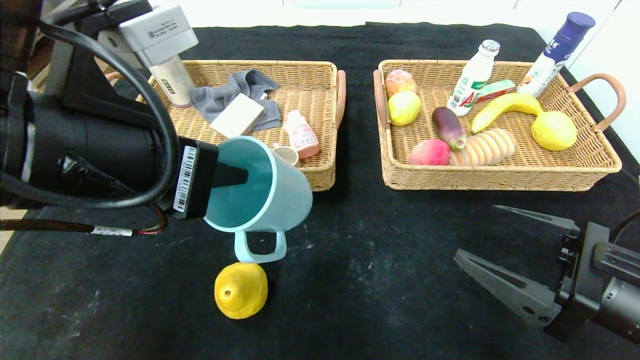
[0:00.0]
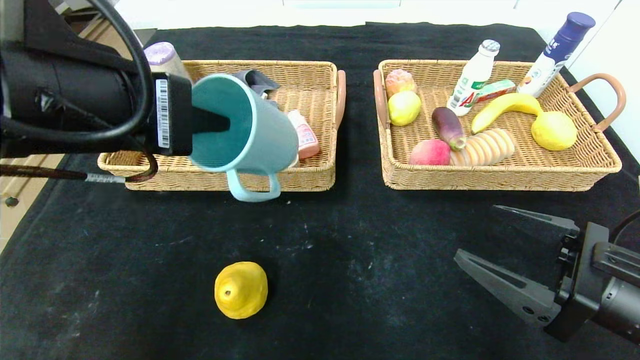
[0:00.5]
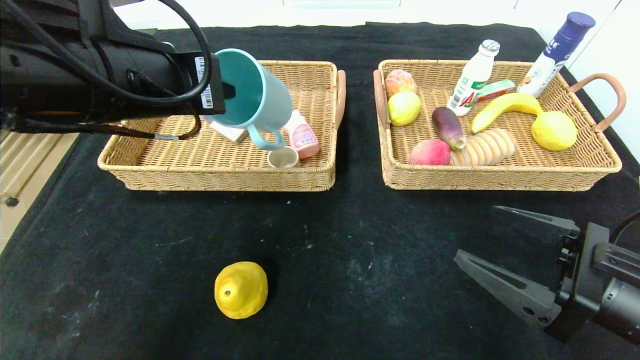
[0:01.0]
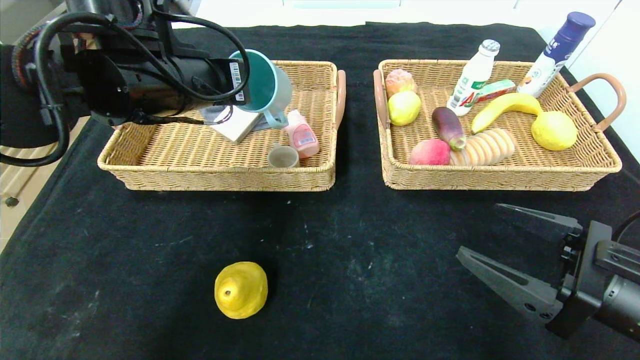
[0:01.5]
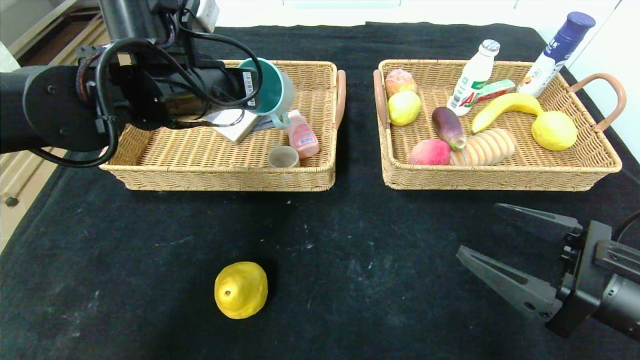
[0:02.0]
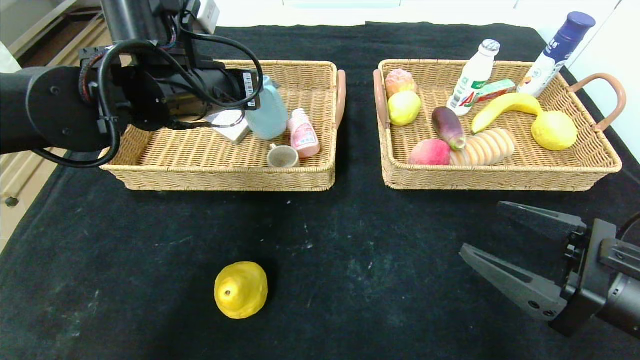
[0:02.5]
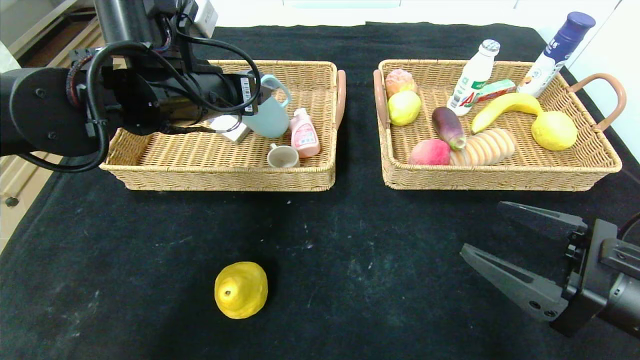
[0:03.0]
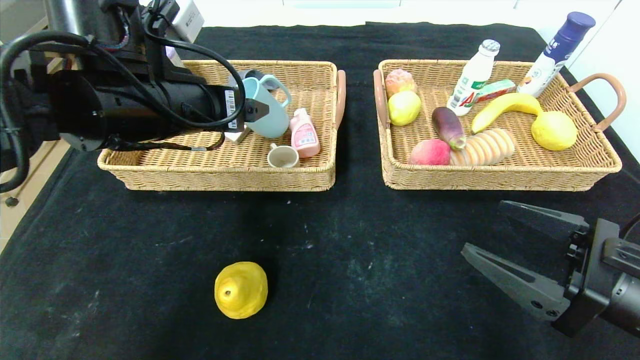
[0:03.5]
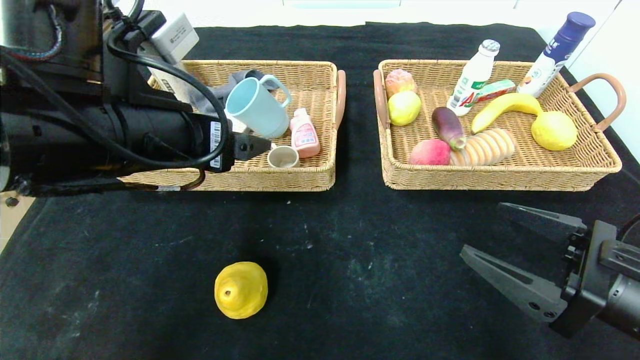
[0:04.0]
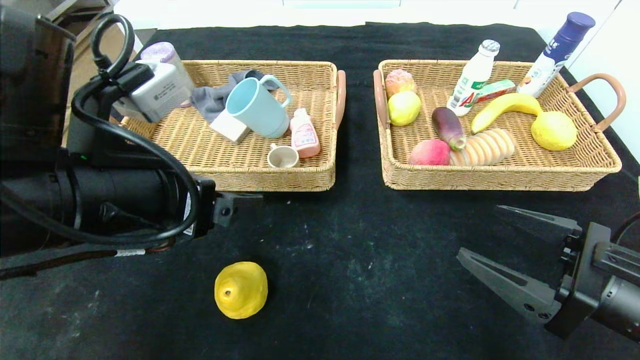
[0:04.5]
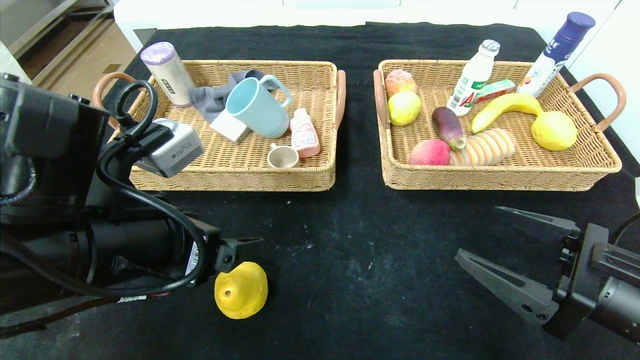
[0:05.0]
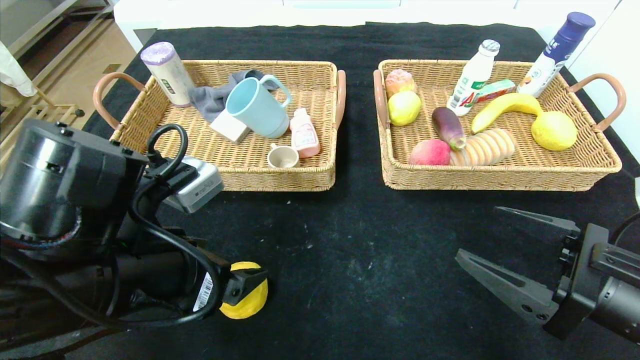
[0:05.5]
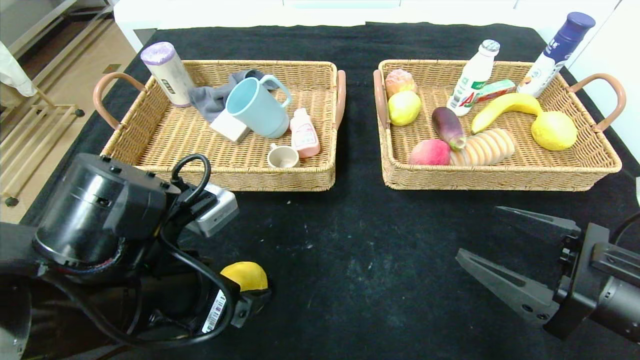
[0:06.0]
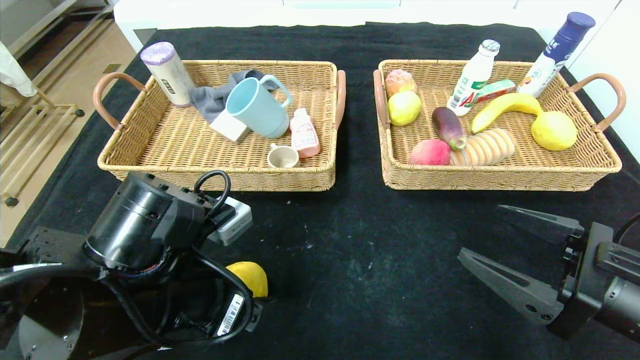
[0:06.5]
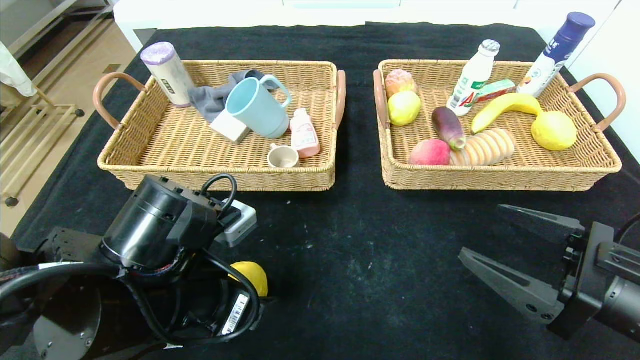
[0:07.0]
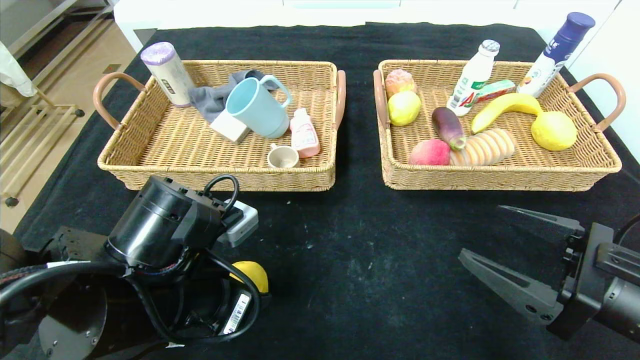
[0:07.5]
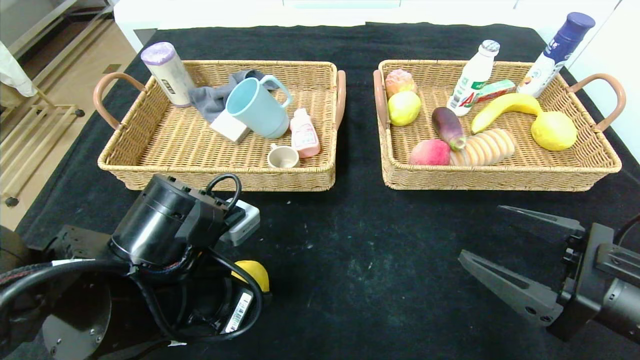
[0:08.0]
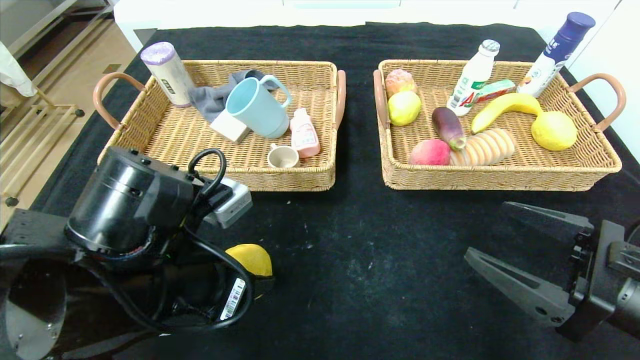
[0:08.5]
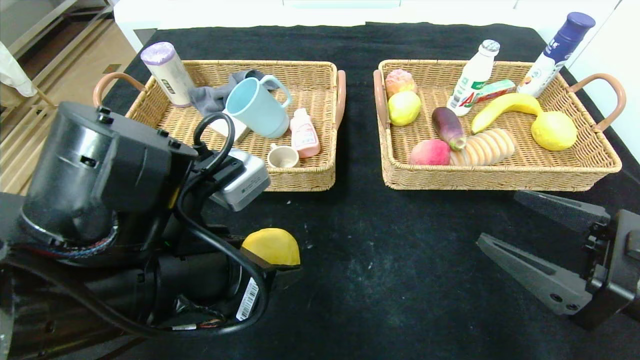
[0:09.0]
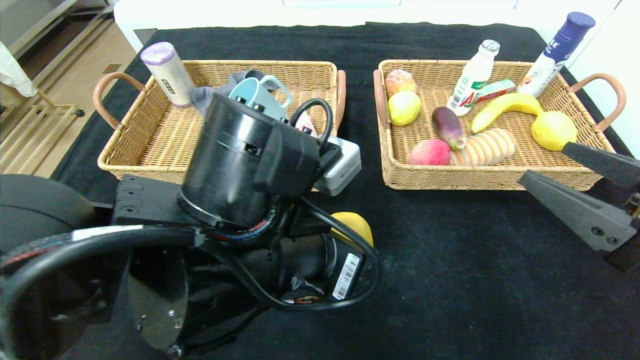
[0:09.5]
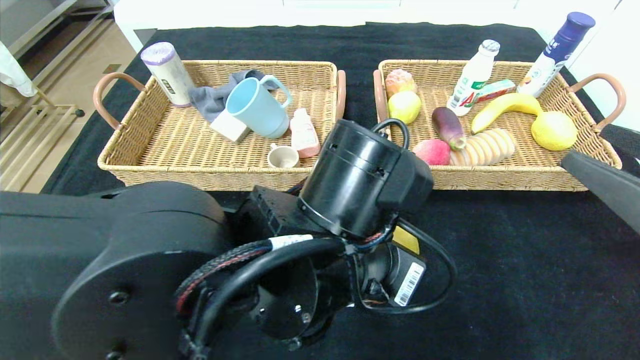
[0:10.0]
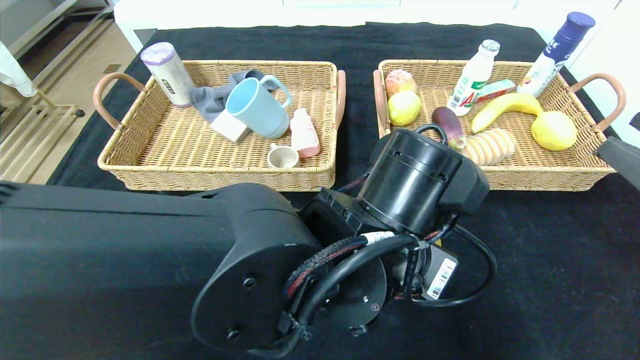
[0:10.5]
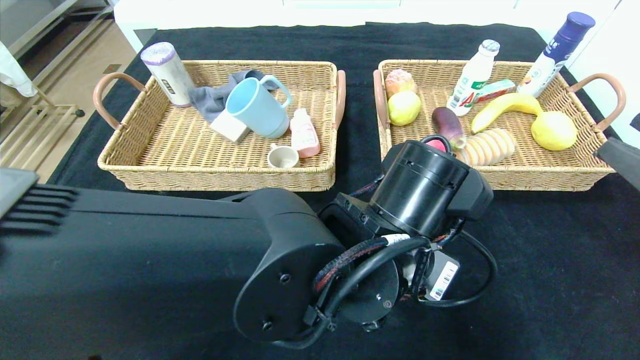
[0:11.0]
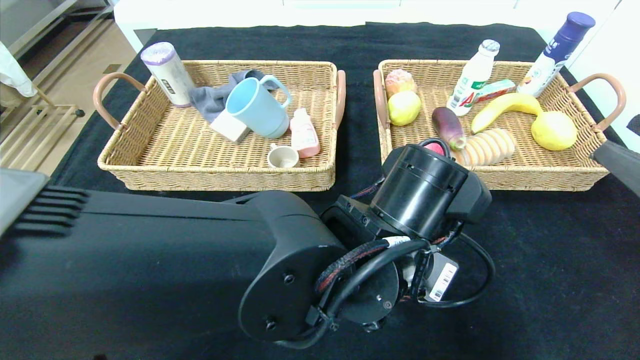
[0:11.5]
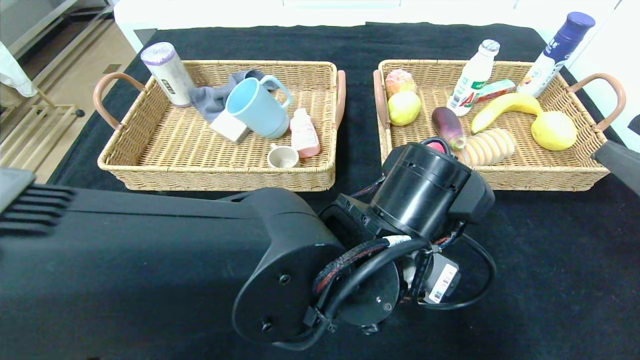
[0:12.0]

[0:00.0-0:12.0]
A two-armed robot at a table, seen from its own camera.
Step, 0:00.0 to 0:03.5: Grasp the blue cup and put it in the left basket.
0:00.0 to 0:02.0: The left gripper moves forward, approximately 15 cm.
0:02.0 to 0:04.0: The left gripper goes approximately 10 cm backward, and opens up.
0:04.0 to 0:06.0: The left gripper heads downward and backward, covering approximately 10 cm.
0:06.0 to 0:08.0: The left gripper closes its fingers.
0:08.0 to 0:10.0: The left gripper shifts some 15 cm to the right. The right gripper is displaced upward by some 5 cm.
0:10.0 to 0:12.0: The left gripper shifts by about 5 cm.

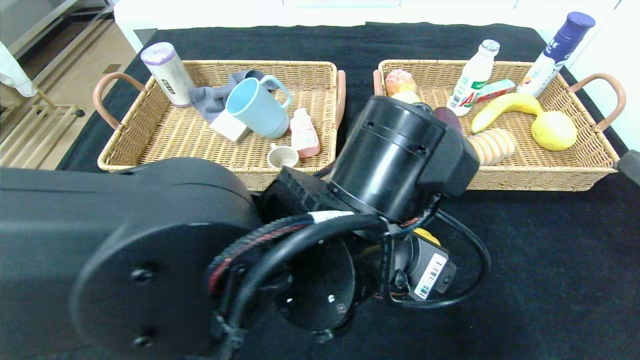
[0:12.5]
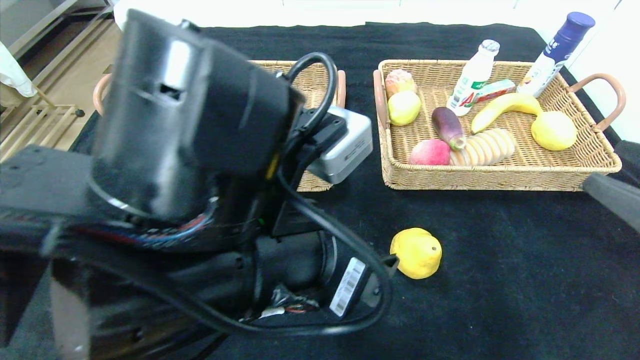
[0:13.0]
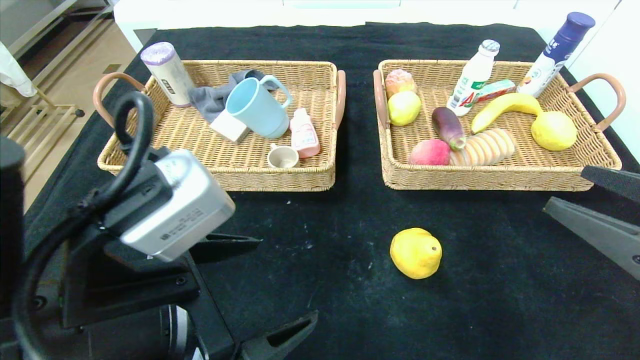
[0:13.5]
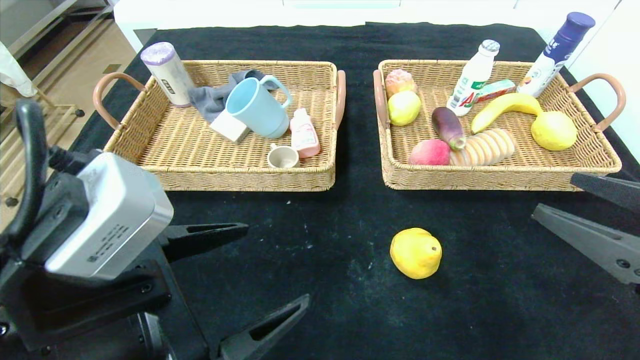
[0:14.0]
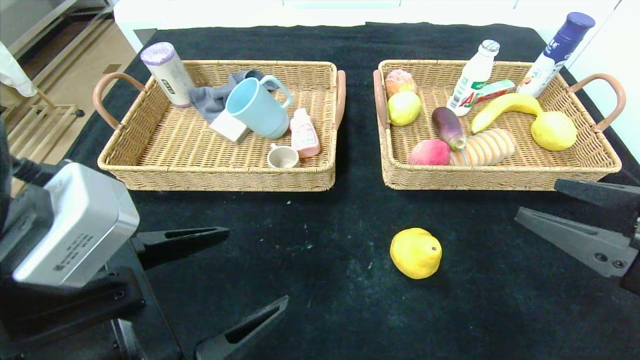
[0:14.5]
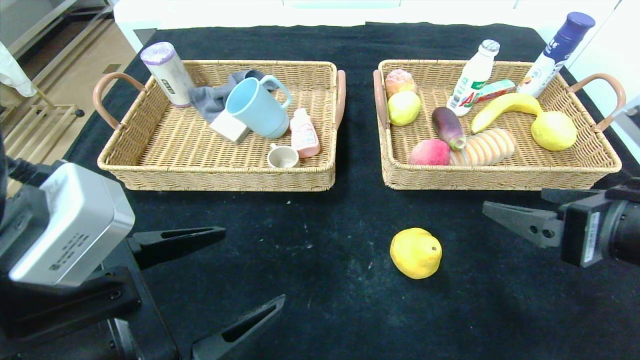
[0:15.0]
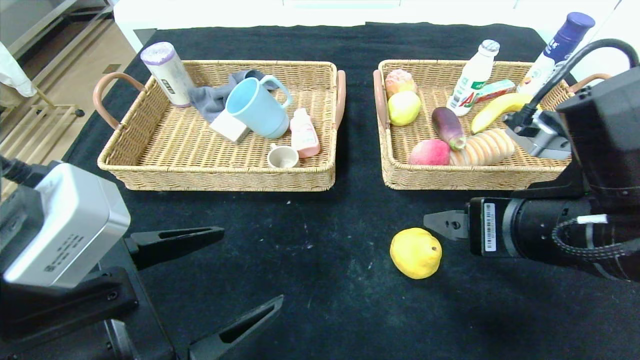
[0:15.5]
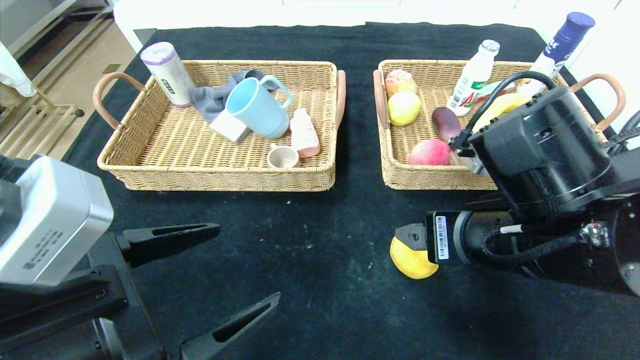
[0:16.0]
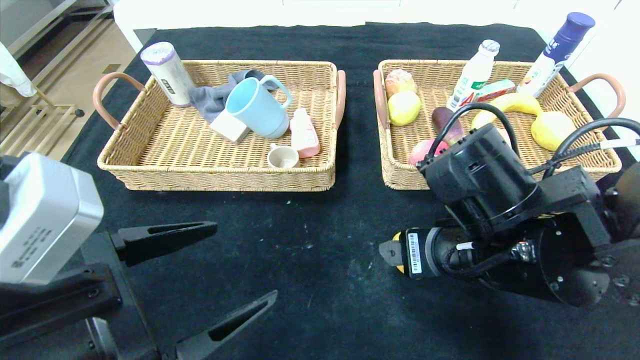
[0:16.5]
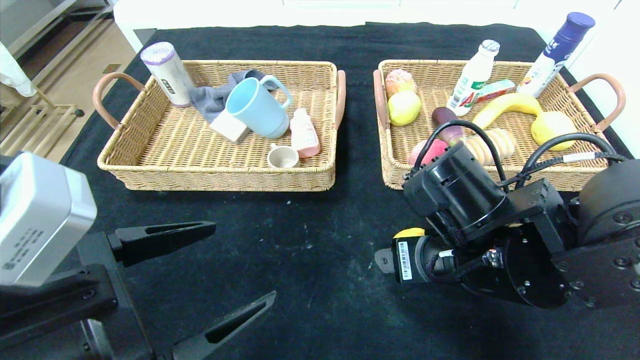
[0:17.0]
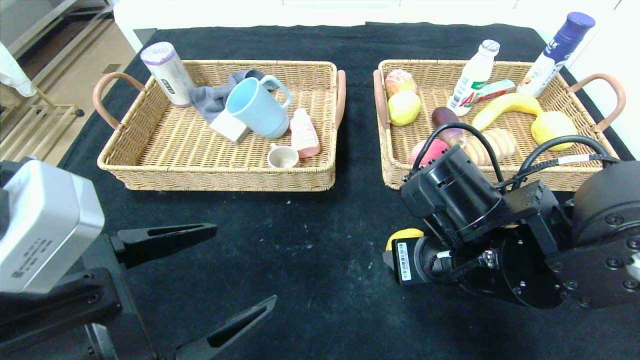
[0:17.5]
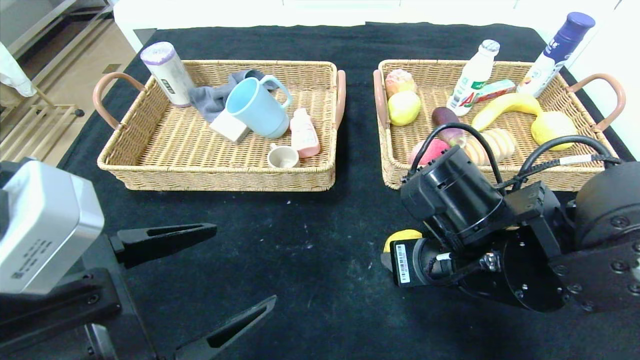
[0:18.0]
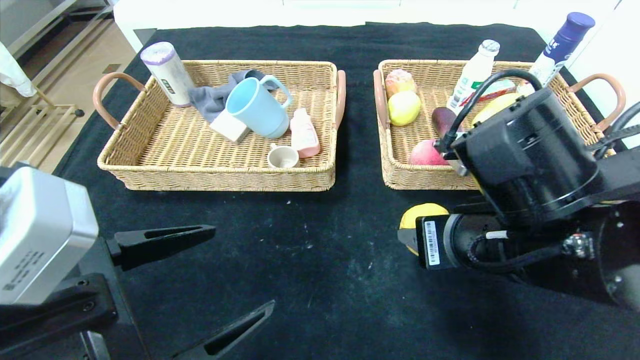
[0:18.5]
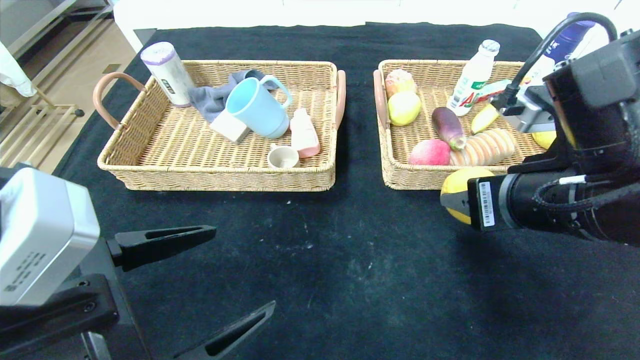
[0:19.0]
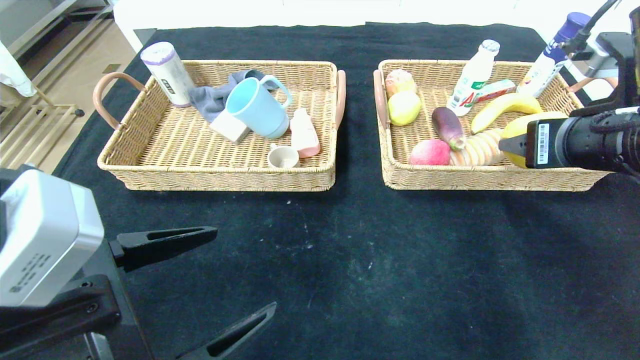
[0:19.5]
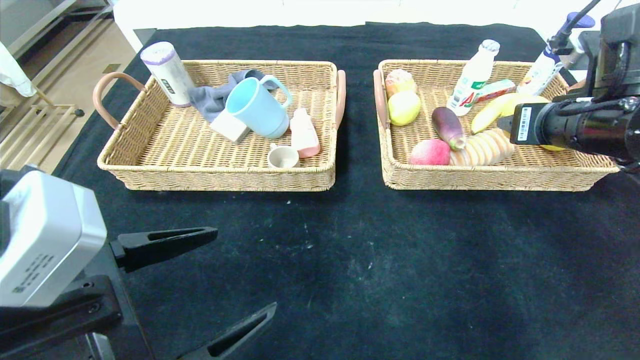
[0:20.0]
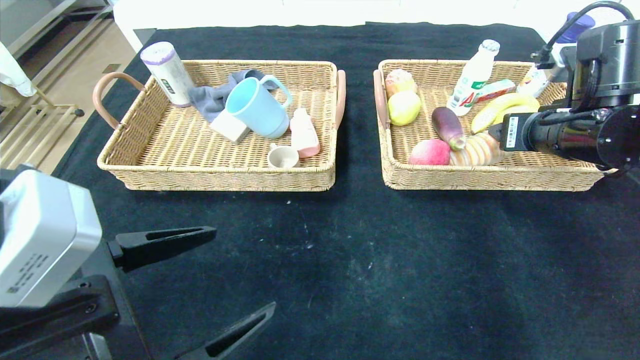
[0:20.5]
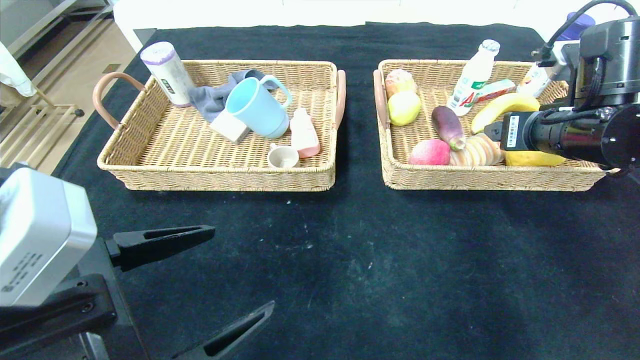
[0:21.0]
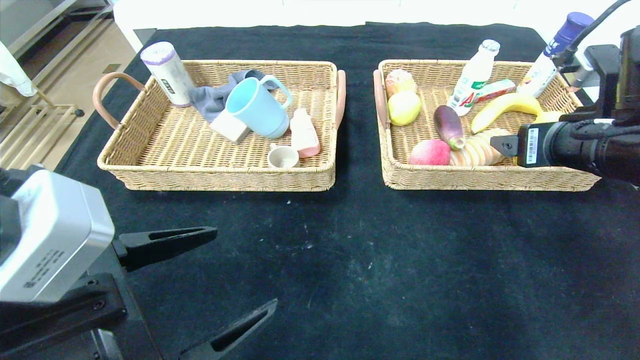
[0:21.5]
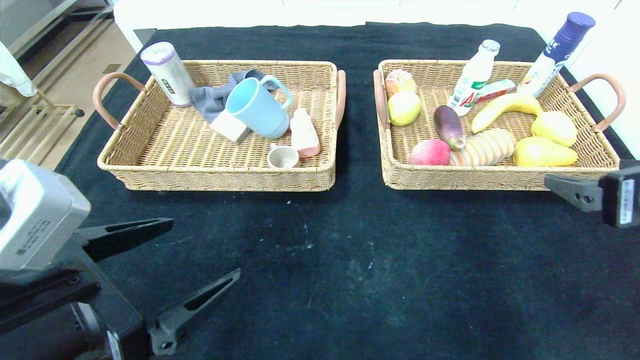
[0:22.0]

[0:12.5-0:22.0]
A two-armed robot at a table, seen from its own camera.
Step, 0:13.0 to 0:20.5: Grasp the pear and put it in the right basket.
0:12.5 to 0:14.5: The left gripper heads to the left and backward, covering some 20 cm.
0:14.5 to 0:16.5: The right gripper shifts about 15 cm to the left.
0:16.5 to 0:18.0: The right gripper closes.
0:18.0 to 0:20.0: The right gripper shifts about 20 cm to the right, upward and forward.
0:20.0 to 0:22.0: The right gripper moves backward, approximately 10 cm, and opens its fingers.
